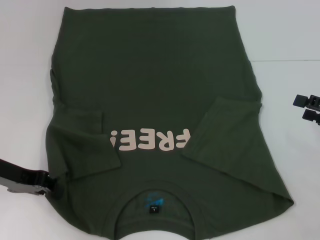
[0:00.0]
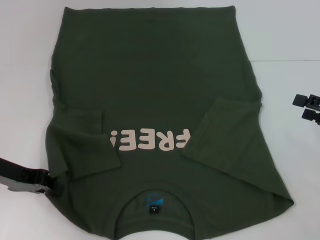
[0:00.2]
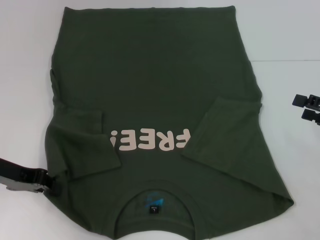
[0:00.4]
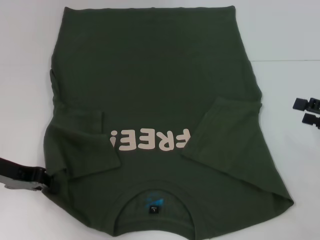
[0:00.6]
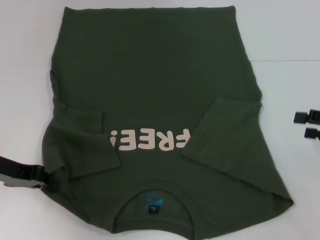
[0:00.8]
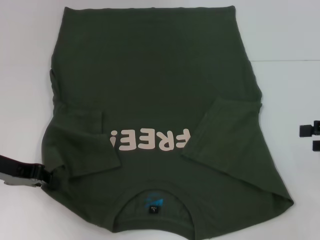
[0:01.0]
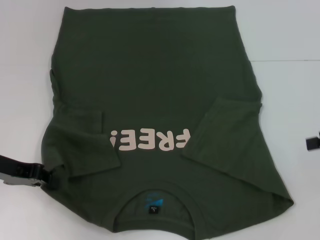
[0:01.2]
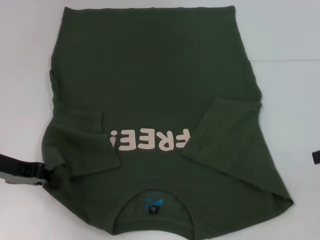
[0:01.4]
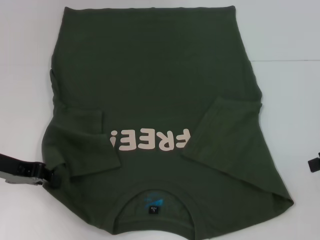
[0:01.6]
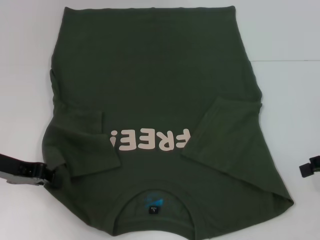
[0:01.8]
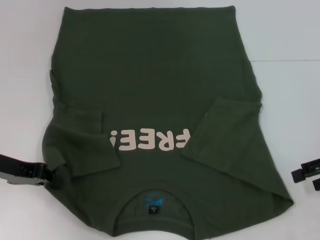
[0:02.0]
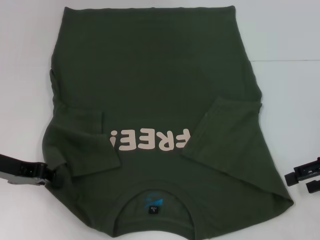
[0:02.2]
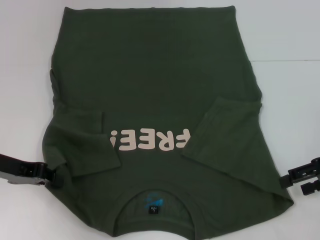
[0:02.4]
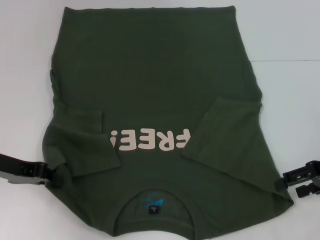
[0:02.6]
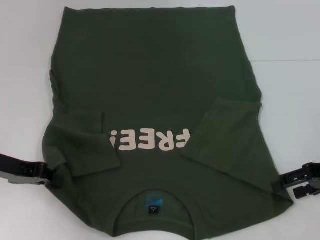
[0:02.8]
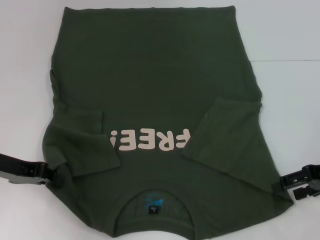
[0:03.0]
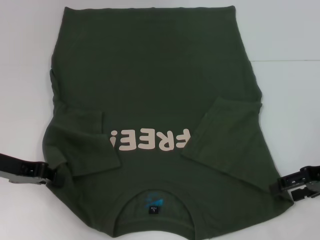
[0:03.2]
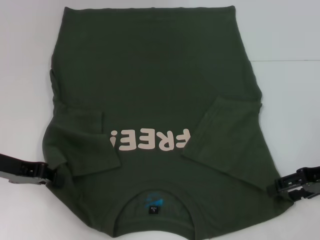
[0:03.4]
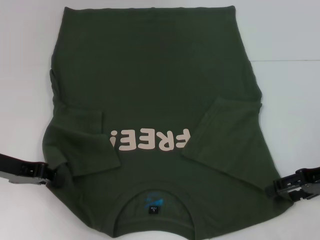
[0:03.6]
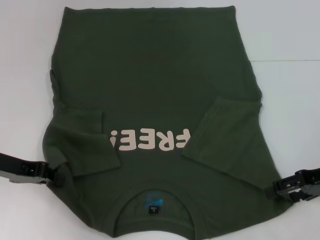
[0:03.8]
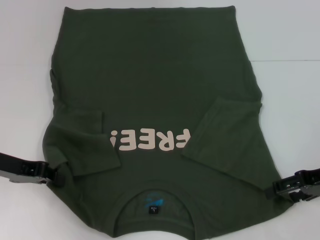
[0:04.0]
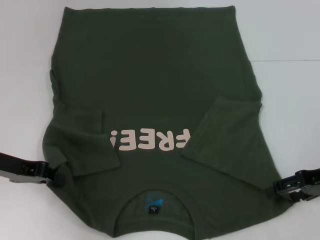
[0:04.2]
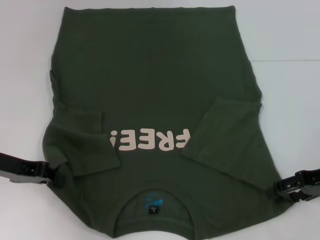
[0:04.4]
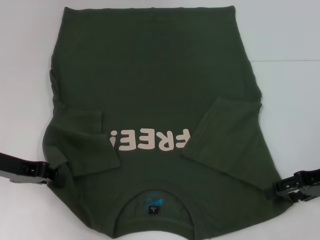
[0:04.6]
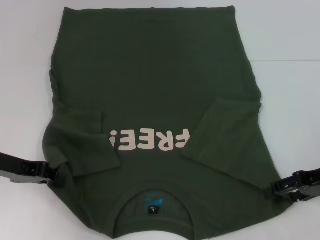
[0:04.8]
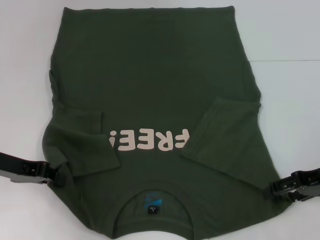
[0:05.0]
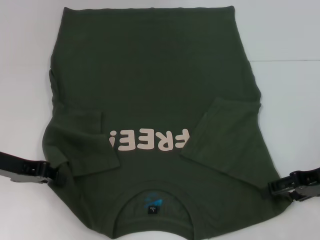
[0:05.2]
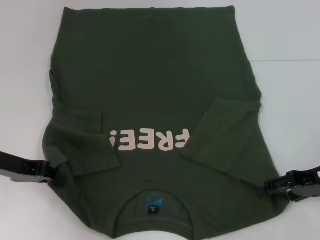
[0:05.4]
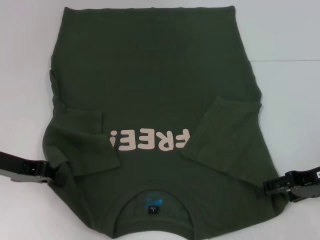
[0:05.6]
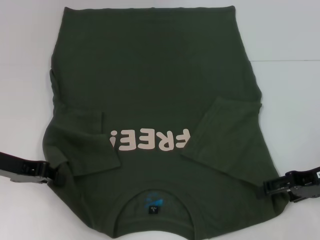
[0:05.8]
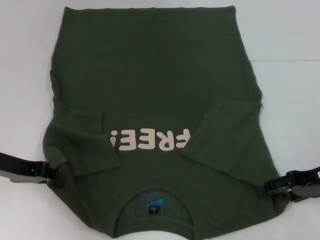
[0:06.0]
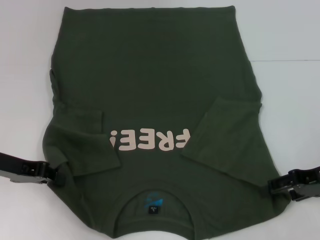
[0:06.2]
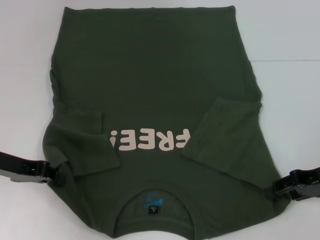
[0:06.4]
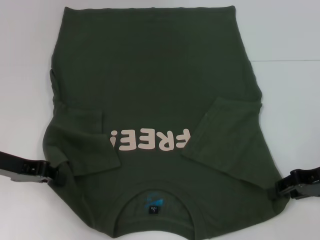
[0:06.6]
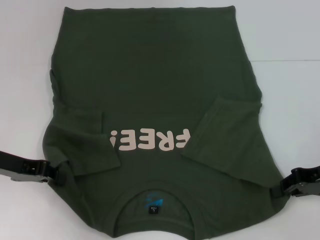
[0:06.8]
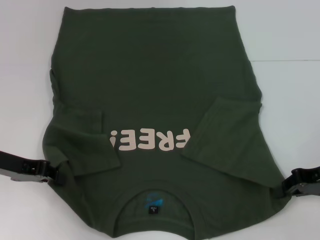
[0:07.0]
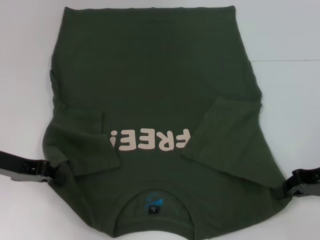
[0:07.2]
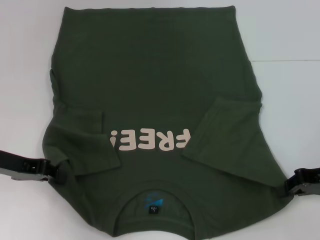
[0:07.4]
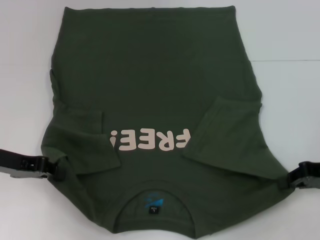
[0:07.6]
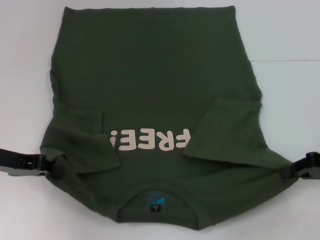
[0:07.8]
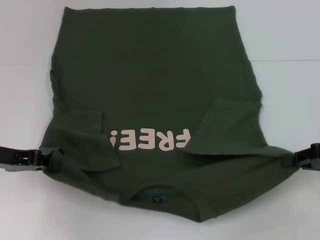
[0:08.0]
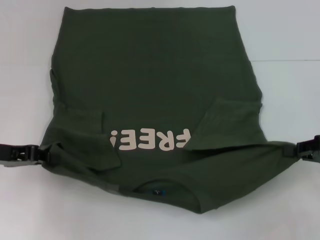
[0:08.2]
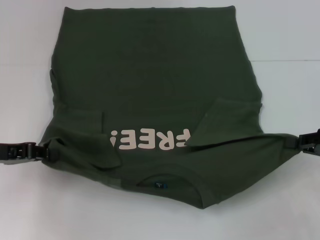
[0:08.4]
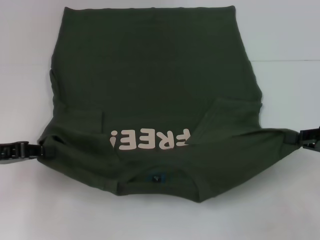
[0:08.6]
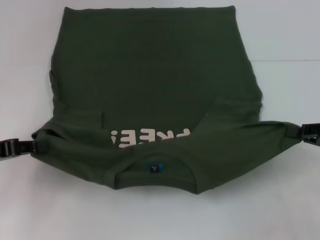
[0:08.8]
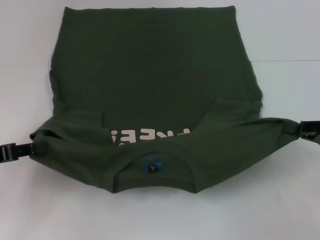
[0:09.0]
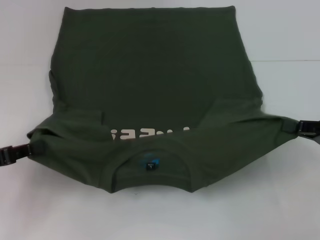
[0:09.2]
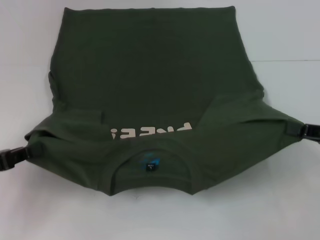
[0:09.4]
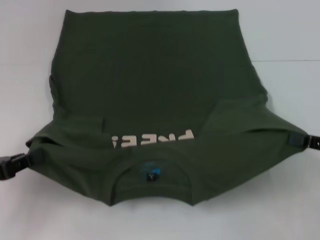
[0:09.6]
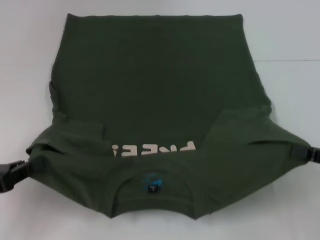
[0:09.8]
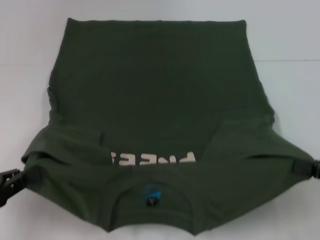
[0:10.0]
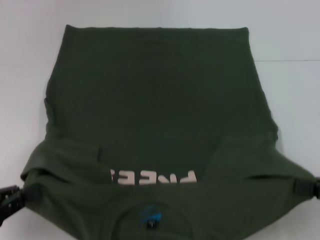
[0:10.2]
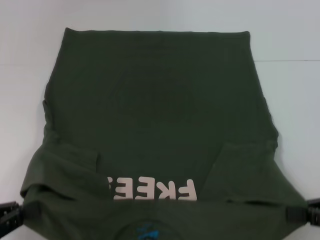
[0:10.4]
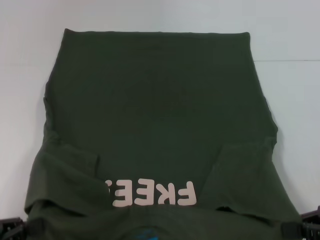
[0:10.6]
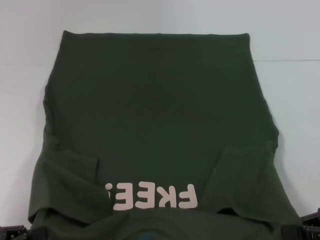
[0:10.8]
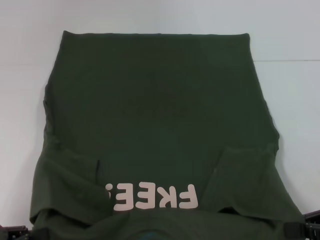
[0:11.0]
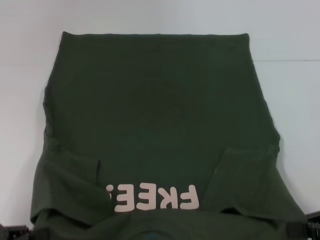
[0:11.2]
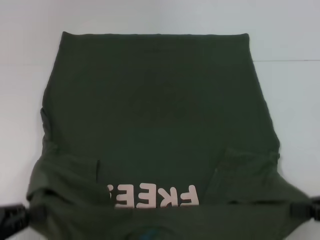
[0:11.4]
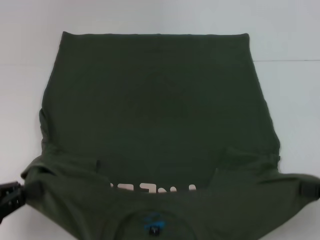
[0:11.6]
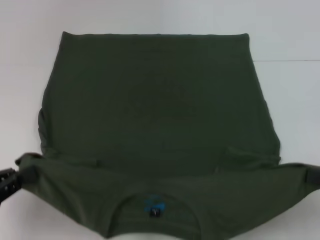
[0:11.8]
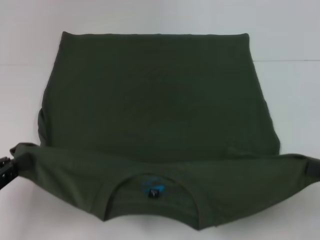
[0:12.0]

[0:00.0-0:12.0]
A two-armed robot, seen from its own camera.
0:00.0 to 0:01.6: The right gripper is displaced upward by about 5 cm.
0:01.6 to 0:03.0: The right gripper moves downward, approximately 5 cm.
0:03.0 to 0:04.4: Both grippers stay about where they are.
0:04.4 to 0:06.0: Neither gripper changes place.
0:06.0 to 0:07.6: The right gripper closes its fingers.
0:07.6 to 0:09.0: The left gripper goes approximately 5 cm backward.
0:09.0 to 0:10.4: Both grippers travel together backward, some 10 cm.

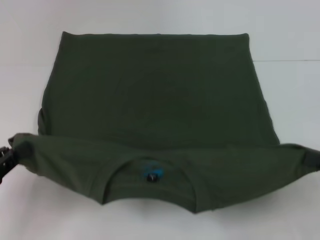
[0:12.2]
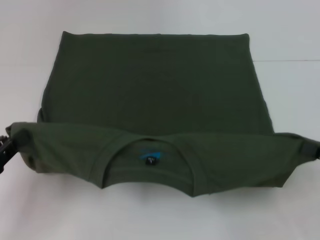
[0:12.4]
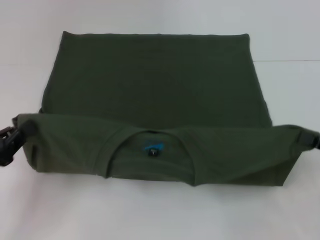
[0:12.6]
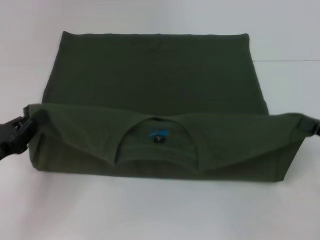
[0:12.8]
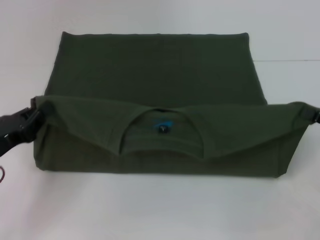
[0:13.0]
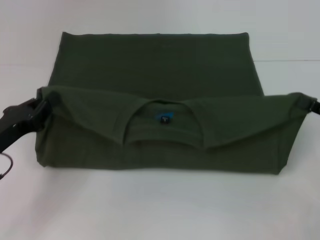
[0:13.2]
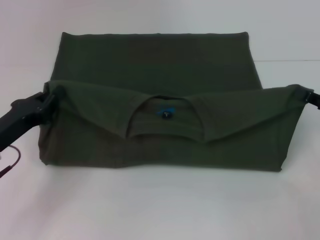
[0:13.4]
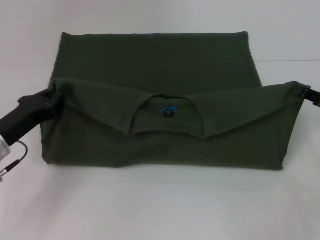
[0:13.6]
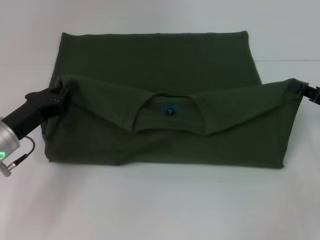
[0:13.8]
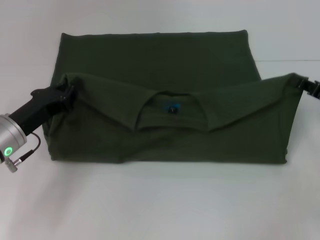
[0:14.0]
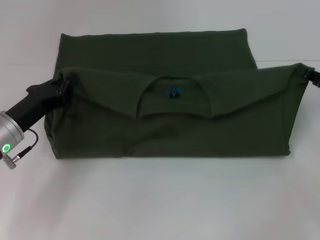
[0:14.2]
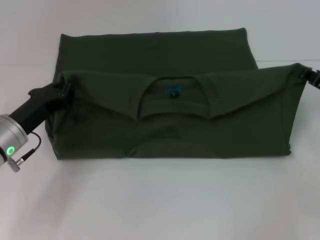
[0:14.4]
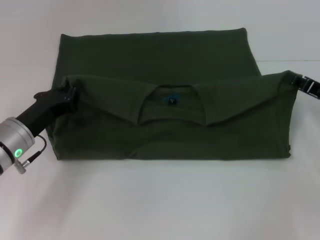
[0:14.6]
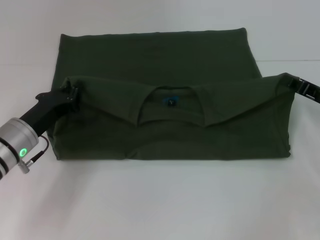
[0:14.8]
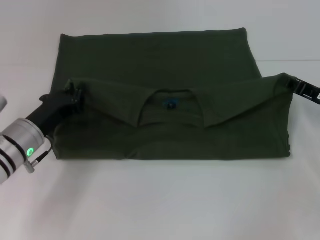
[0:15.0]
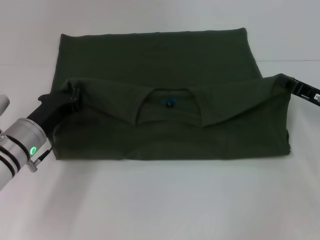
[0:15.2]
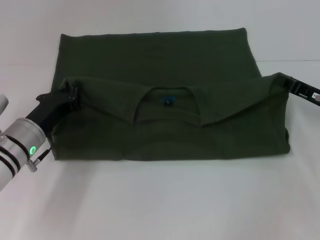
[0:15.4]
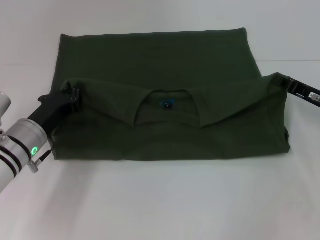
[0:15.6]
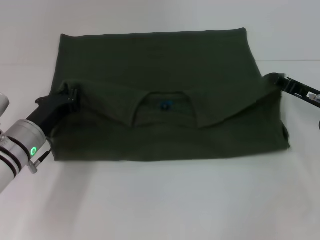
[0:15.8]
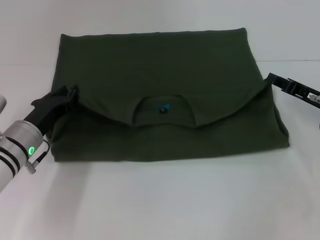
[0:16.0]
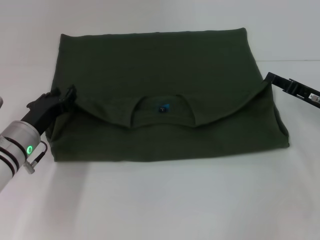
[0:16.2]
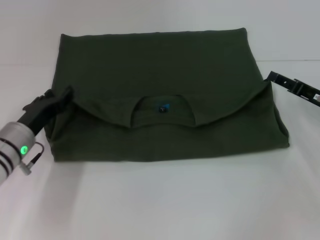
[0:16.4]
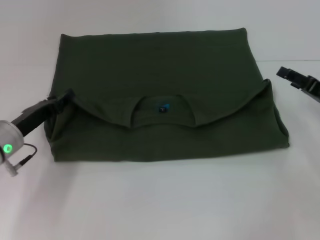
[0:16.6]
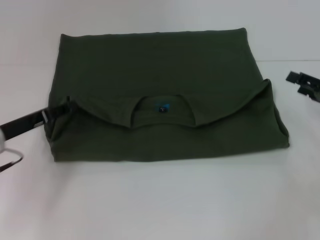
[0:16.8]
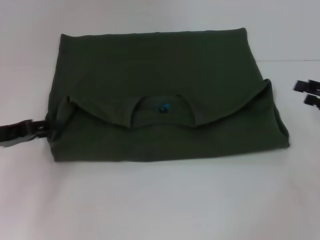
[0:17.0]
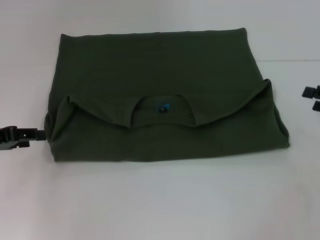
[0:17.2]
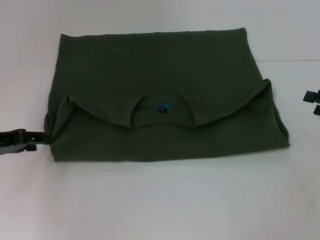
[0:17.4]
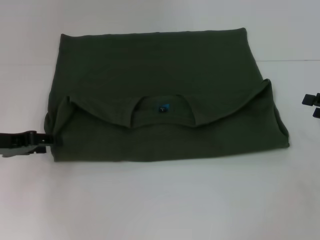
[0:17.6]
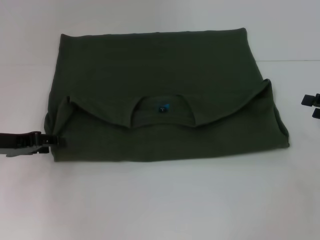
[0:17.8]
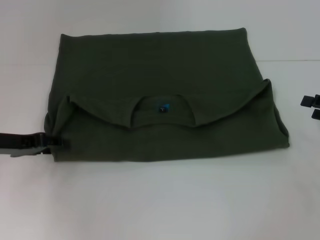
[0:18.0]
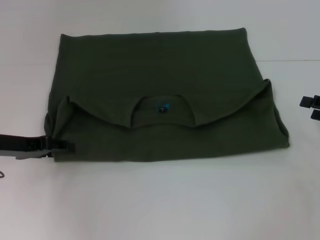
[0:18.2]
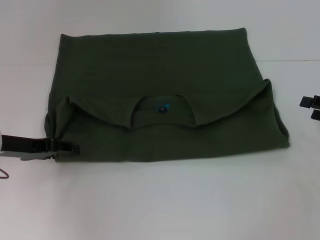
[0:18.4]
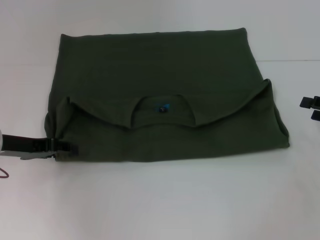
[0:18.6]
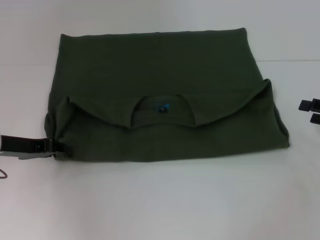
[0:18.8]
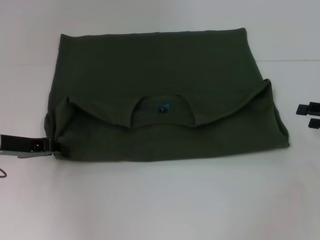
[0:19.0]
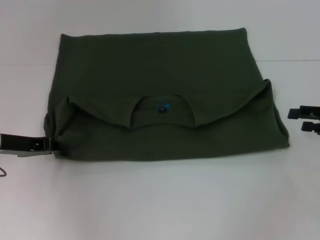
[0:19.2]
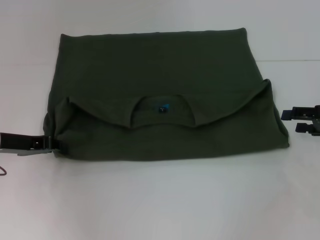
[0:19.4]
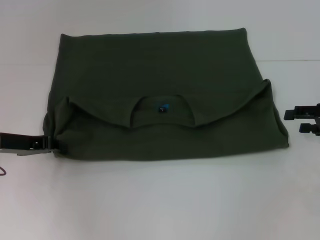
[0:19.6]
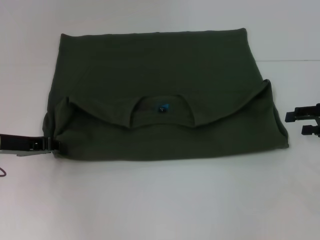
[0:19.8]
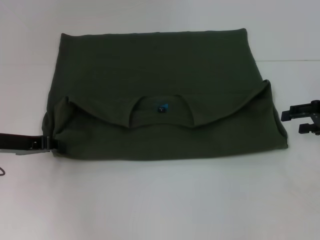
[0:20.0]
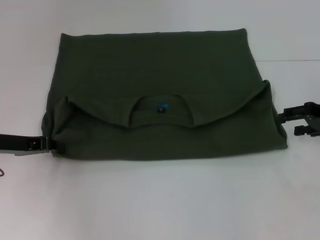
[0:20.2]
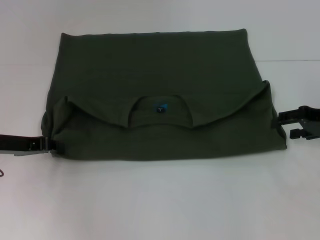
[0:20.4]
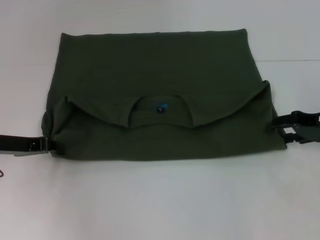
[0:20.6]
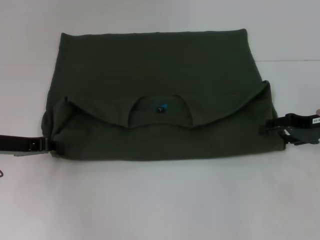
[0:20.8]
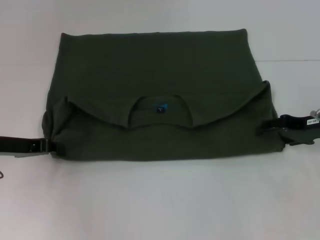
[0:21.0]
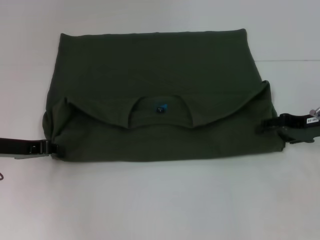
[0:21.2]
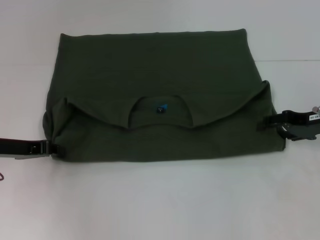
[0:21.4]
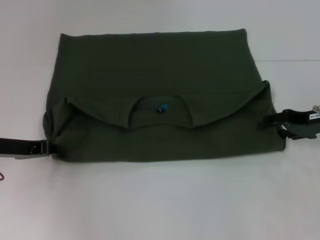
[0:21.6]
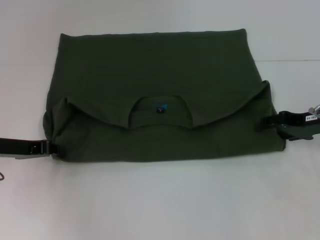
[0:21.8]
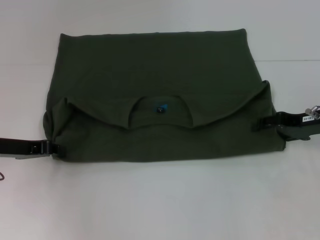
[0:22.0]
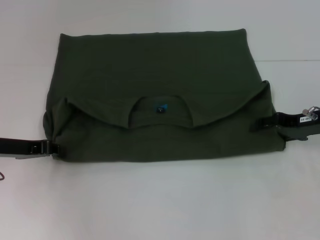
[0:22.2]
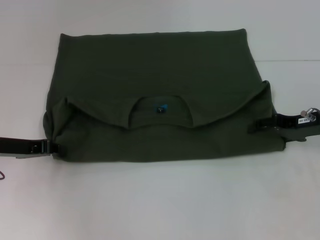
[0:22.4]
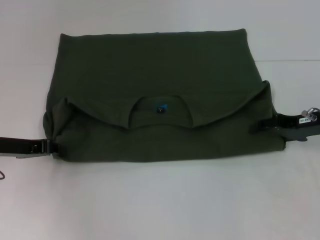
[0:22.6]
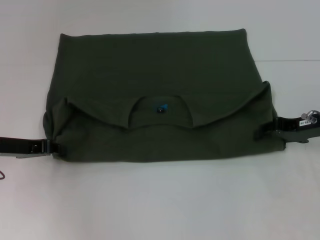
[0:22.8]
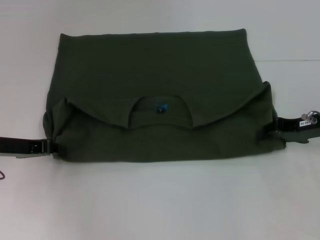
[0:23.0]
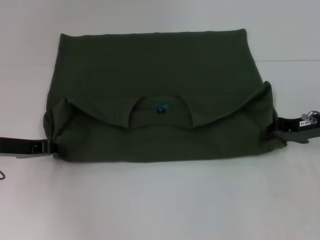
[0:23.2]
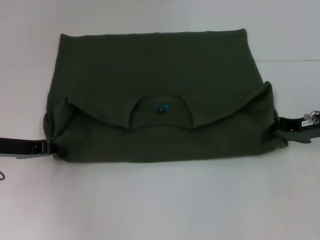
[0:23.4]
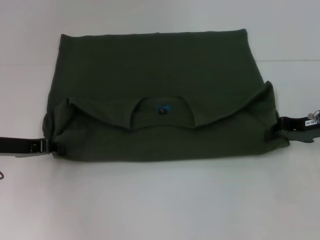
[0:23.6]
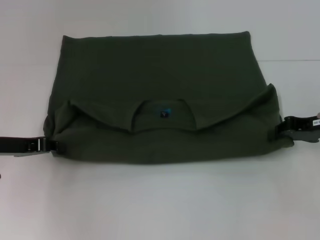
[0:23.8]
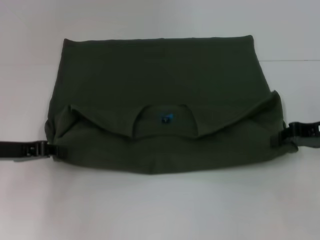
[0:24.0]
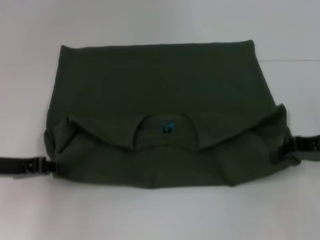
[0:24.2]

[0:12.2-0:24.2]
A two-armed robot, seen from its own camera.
Step, 0:12.2 to 0:16.4: Fold the clothes with your left hand.
Step, 0:12.2 to 0:16.4: Fold the clothes with your right hand.
0:12.2 to 0:13.8: The left gripper is displaced forward and to the right by some 15 cm. The right gripper is displaced forward by about 10 cm.
0:13.8 to 0:15.2: The grippers move only a little.
0:15.2 to 0:16.6: The left gripper opens its fingers. Meanwhile the right gripper opens up.
0:16.6 to 0:18.2: The right gripper heads to the right, covering roughly 5 cm, while the left gripper shifts approximately 5 cm upward.
0:18.2 to 0:19.8: The left gripper closes its fingers.
0:19.8 to 0:21.2: The right gripper moves to the left, roughly 5 cm.
0:21.2 to 0:22.6: The two grippers keep their place.
0:22.6 to 0:24.2: The right gripper closes its fingers.
